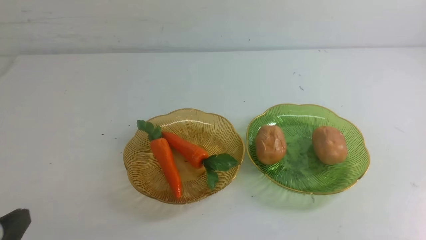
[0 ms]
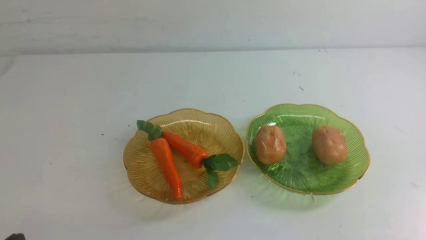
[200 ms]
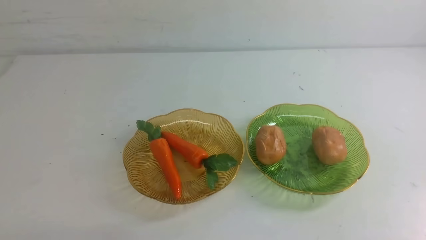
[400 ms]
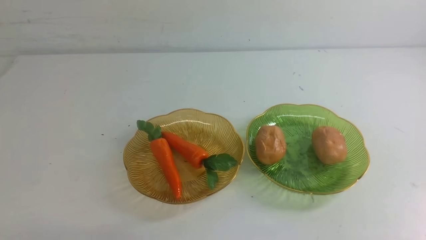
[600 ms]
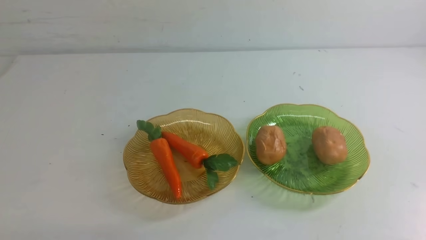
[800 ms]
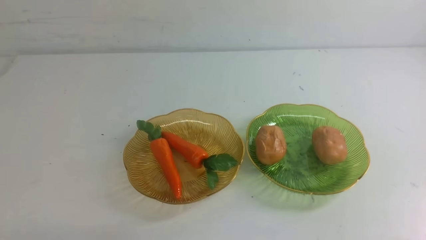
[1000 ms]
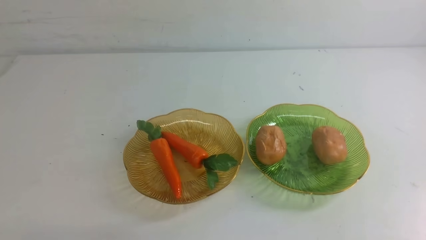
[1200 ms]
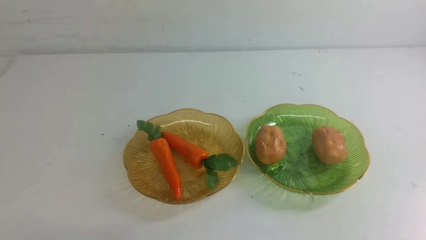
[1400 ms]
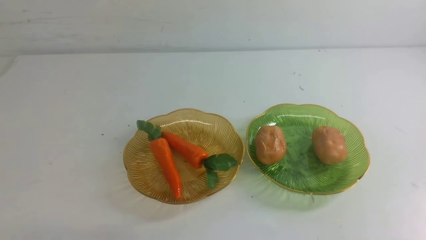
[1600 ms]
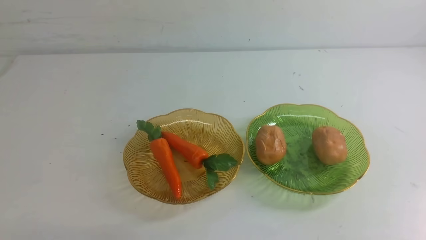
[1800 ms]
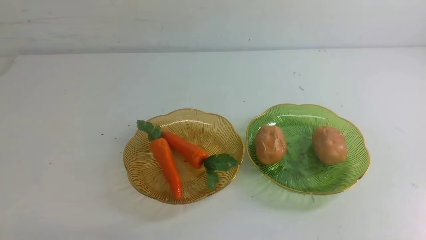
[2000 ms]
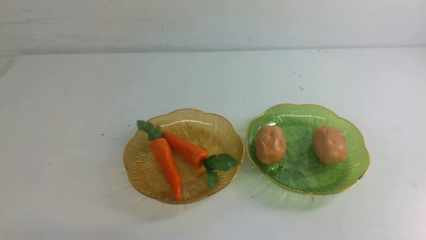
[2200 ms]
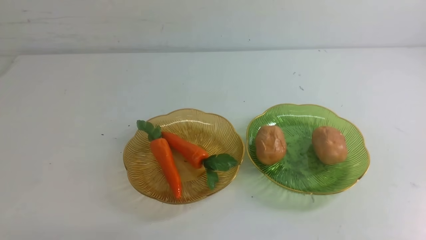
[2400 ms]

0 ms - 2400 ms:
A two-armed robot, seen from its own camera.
1200 ms - 2400 ms: Both grippers stay about where they are.
